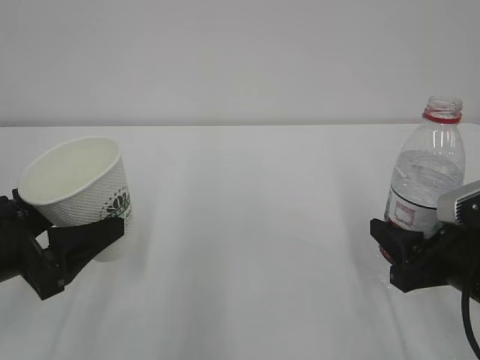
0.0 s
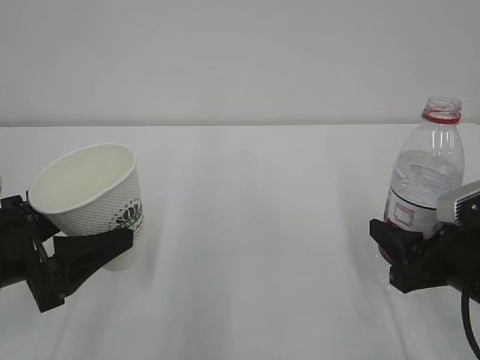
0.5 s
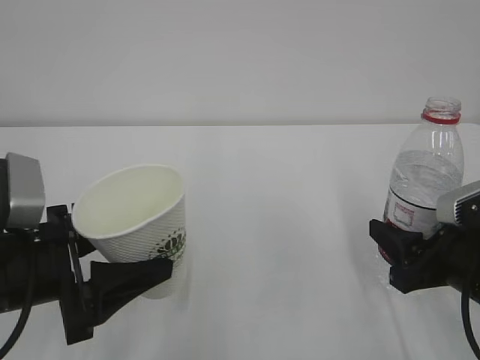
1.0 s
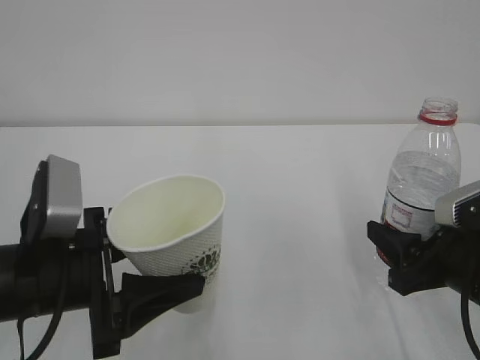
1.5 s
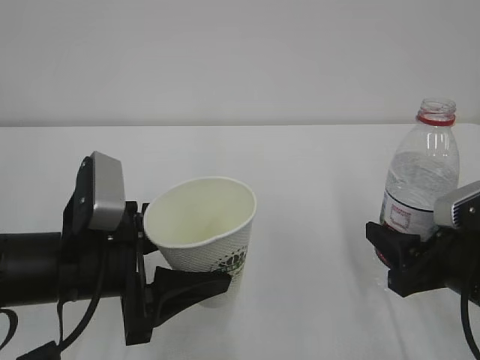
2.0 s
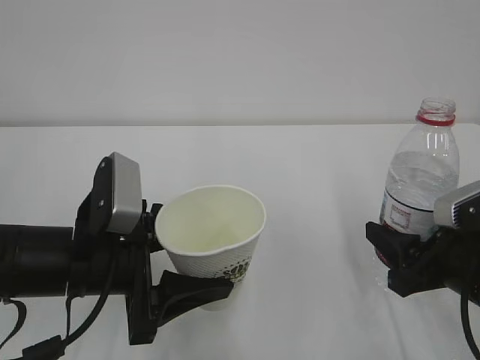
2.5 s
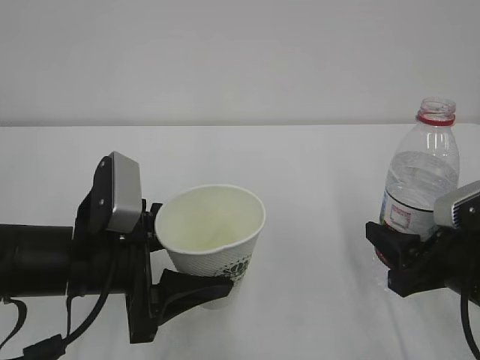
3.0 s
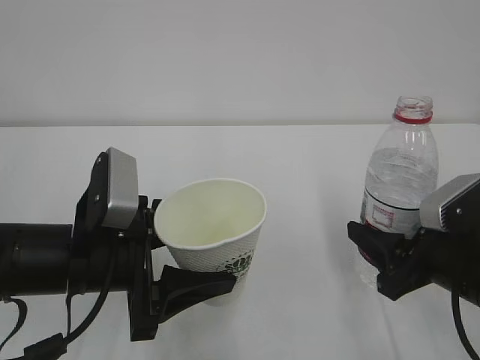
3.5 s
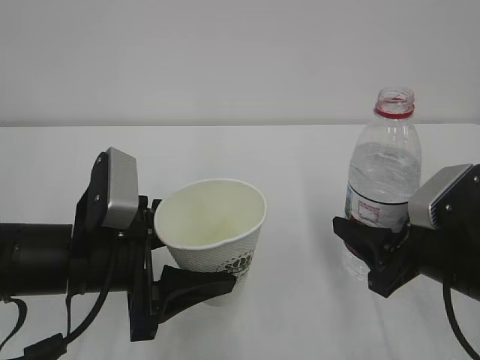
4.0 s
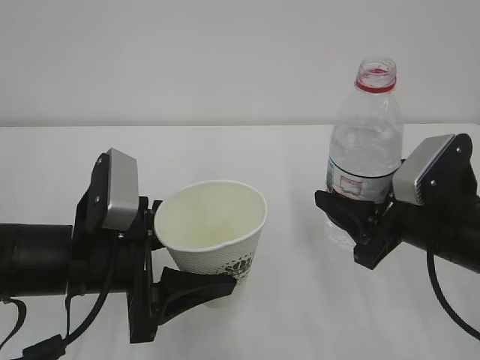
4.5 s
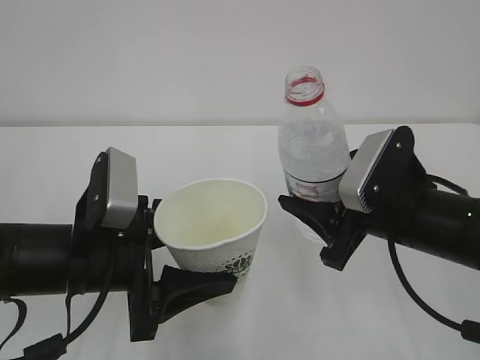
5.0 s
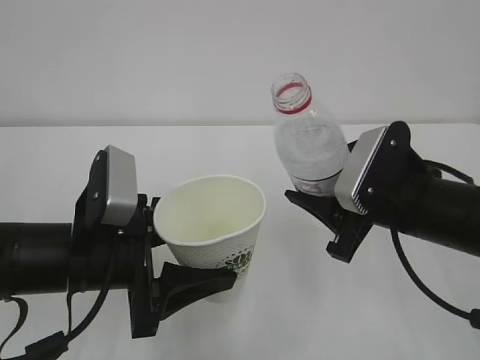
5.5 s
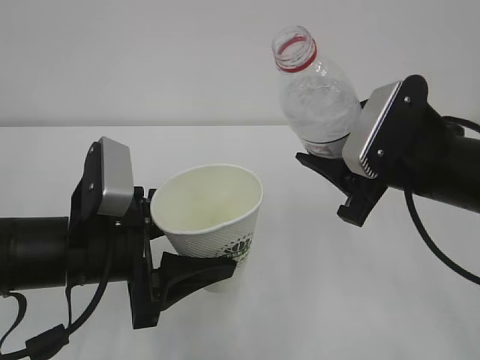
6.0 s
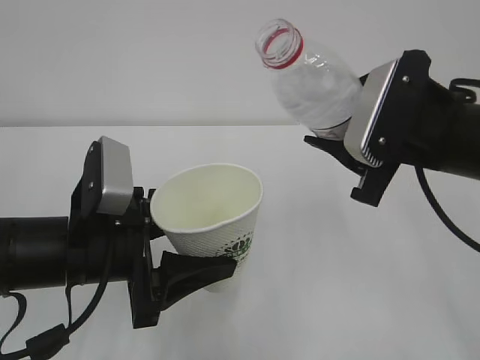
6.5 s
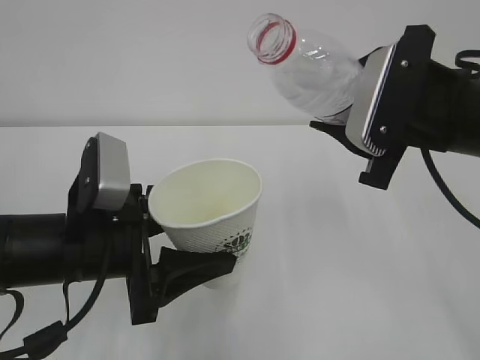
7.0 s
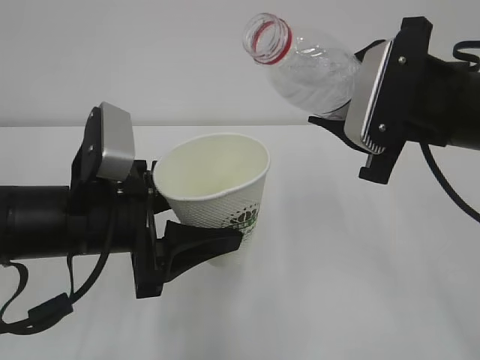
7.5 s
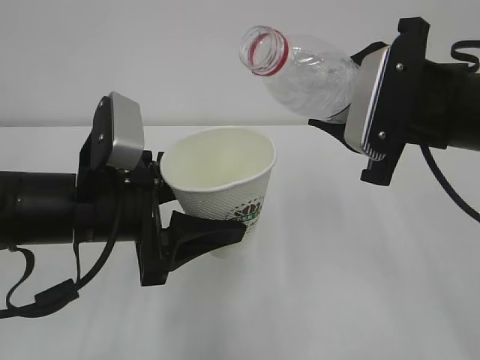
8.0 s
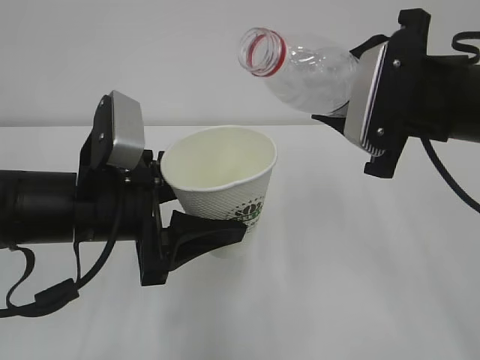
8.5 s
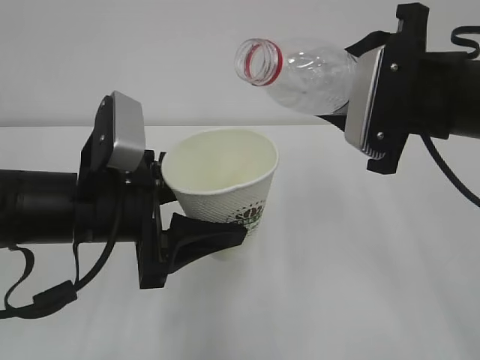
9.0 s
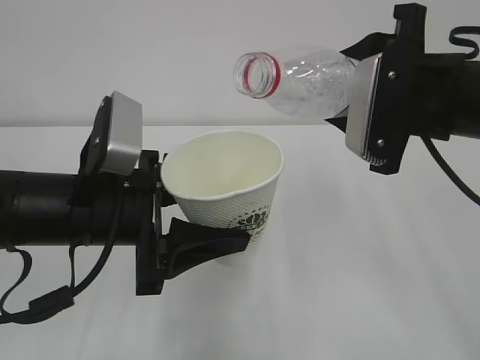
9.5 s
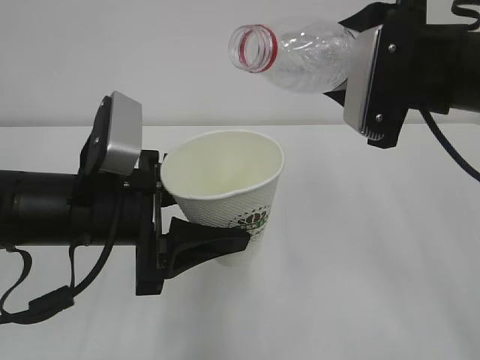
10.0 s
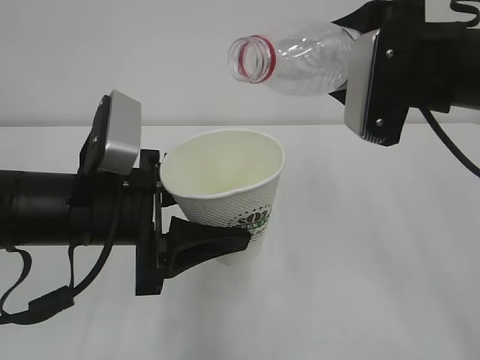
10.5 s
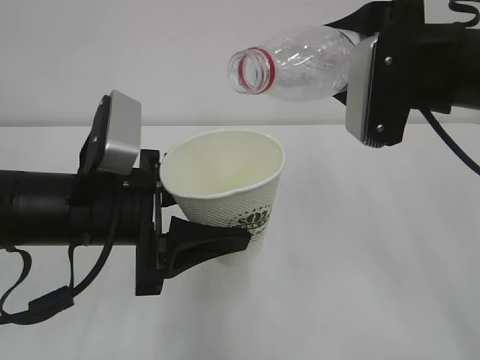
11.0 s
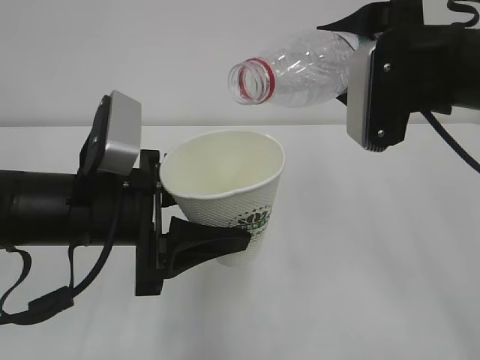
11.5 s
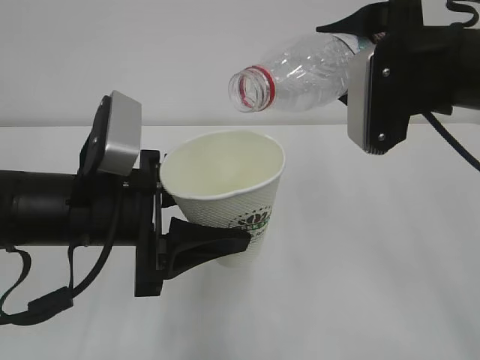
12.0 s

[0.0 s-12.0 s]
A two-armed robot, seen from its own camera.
0.0 to 2.0 s: The left gripper shifts approximately 10 cm to the right.
2.0 to 4.0 s: There are only small adjustments of the grippers.
4.0 to 6.0 s: The right gripper travels upward by about 10 cm.
6.0 to 8.0 s: The right gripper is displaced upward by roughly 5 cm.
8.0 to 10.0 s: The grippers stay close to where they were, moving slightly.
10.0 to 12.0 s: The grippers stay close to where they were, moving slightly.

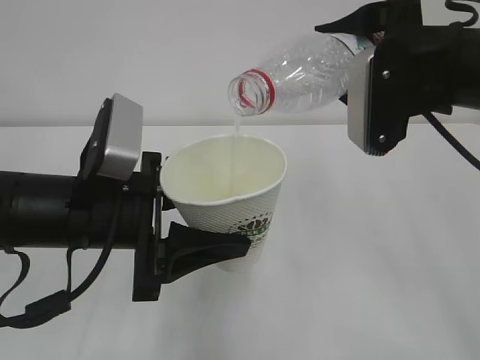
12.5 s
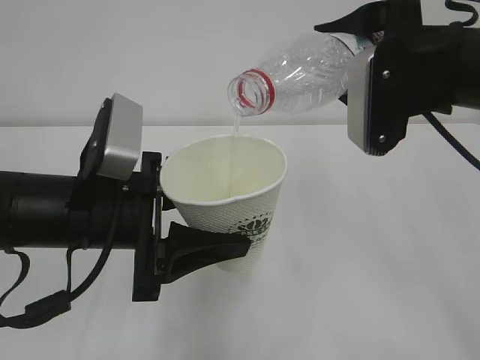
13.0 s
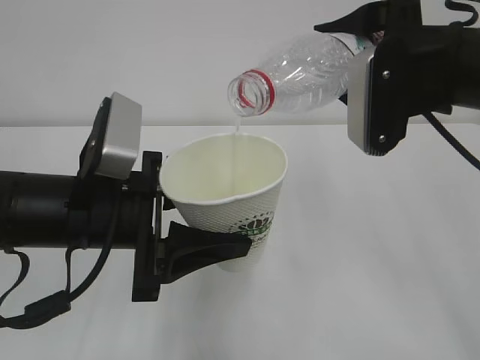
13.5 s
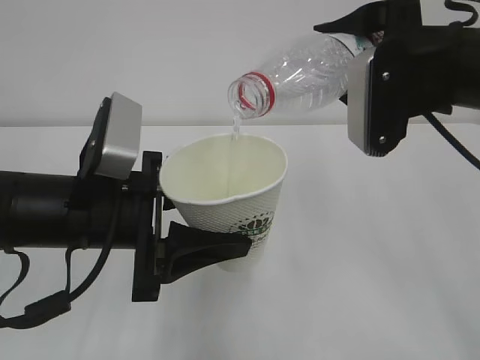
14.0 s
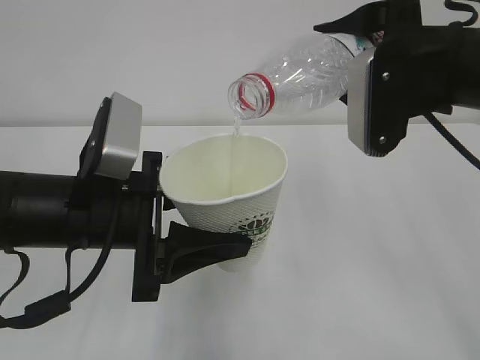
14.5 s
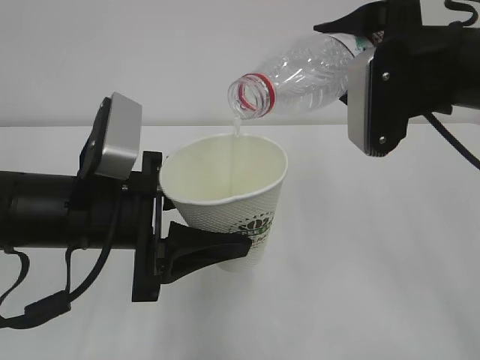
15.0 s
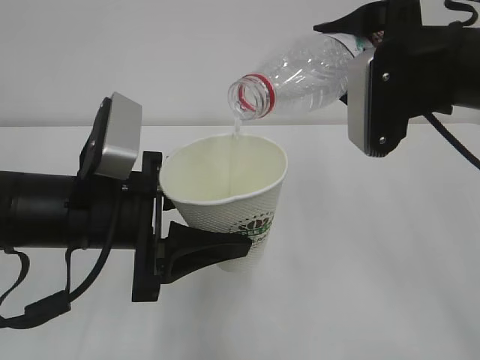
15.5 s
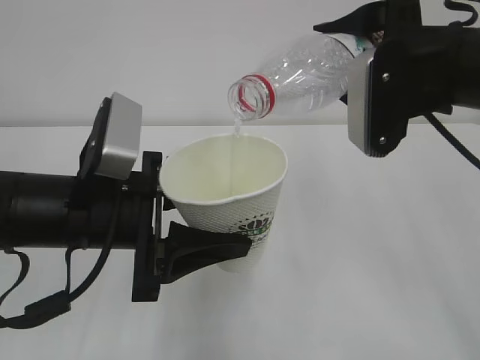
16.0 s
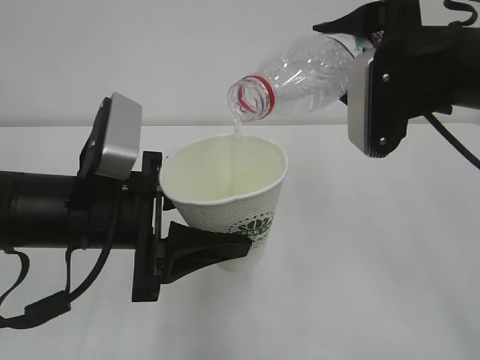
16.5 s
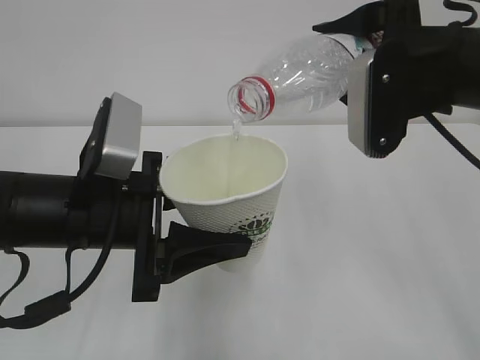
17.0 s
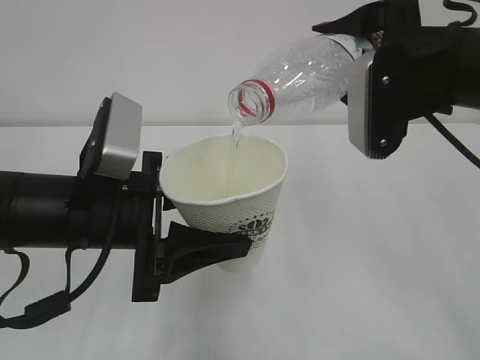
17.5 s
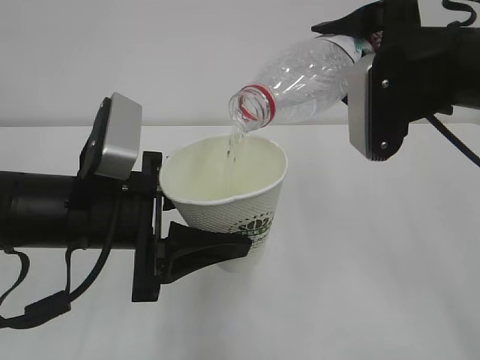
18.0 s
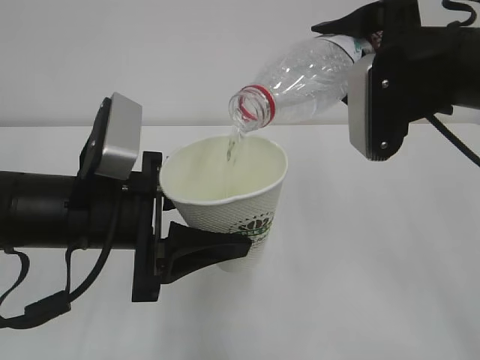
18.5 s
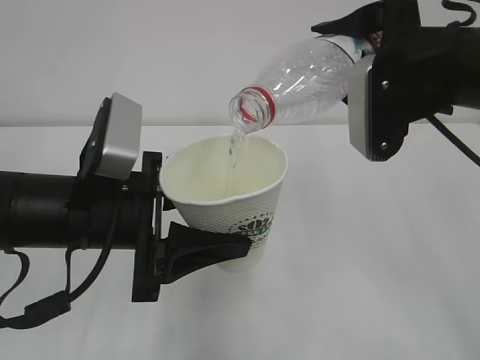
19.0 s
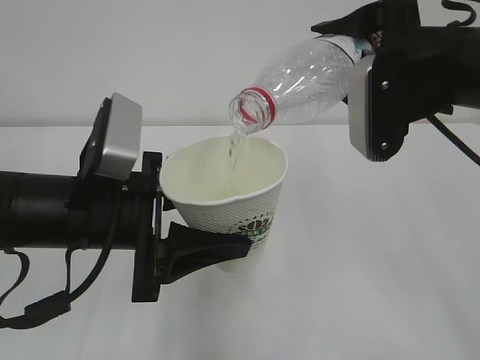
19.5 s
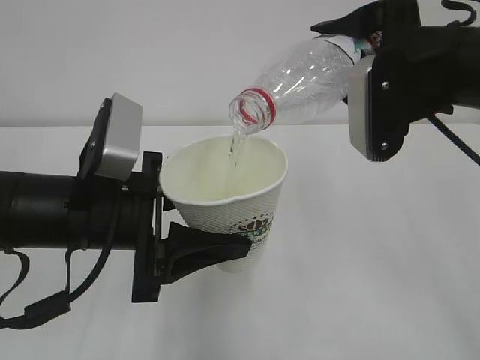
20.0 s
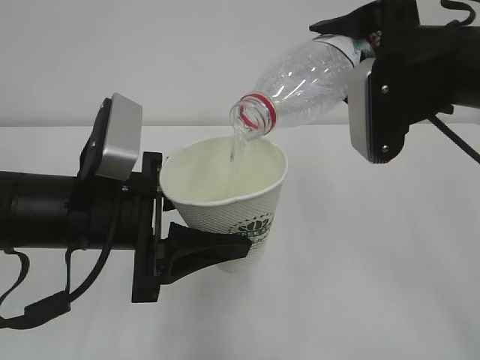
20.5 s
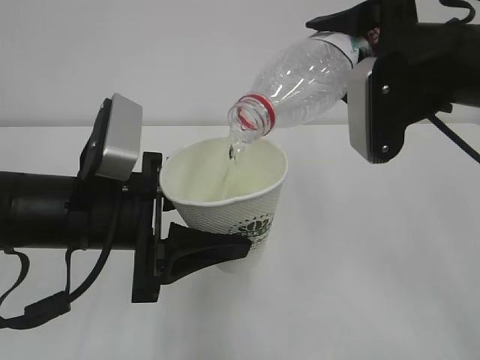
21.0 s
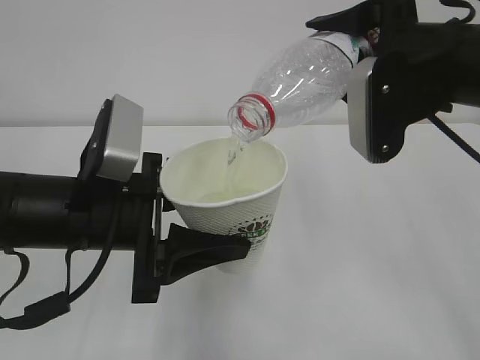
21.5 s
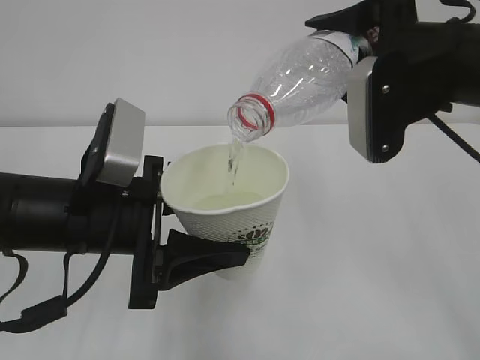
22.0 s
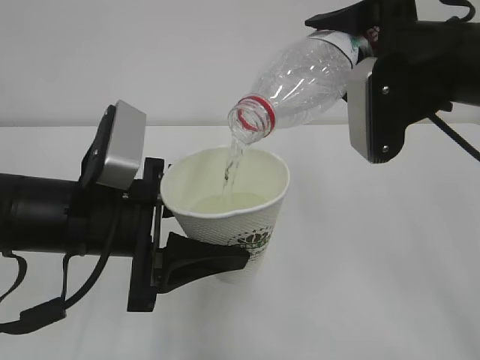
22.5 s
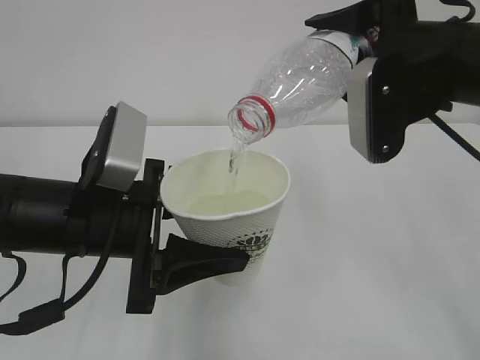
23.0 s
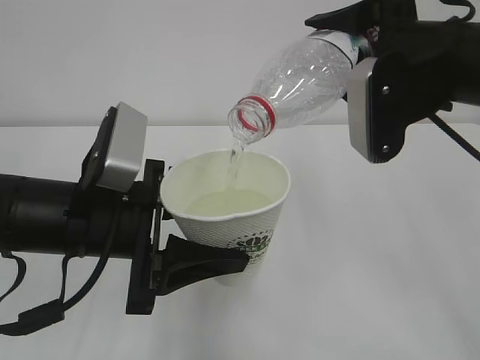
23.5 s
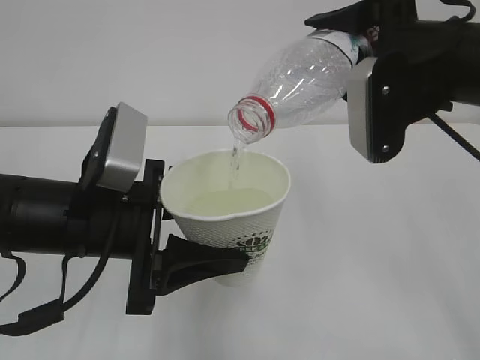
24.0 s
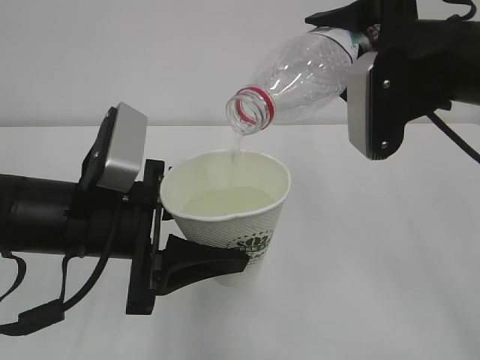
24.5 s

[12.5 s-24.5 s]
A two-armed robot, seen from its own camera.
12.5 to 18.5 s: Both grippers stay about where they are.
18.5 to 20.5 s: The two grippers keep their place.
20.5 to 24.5 s: Neither gripper changes place.

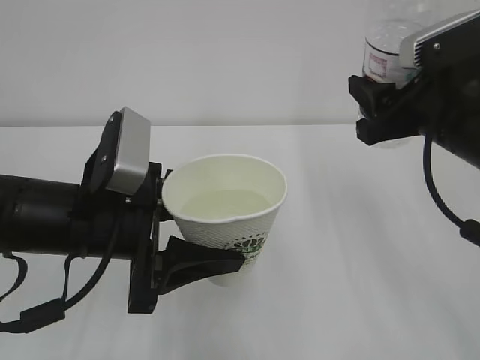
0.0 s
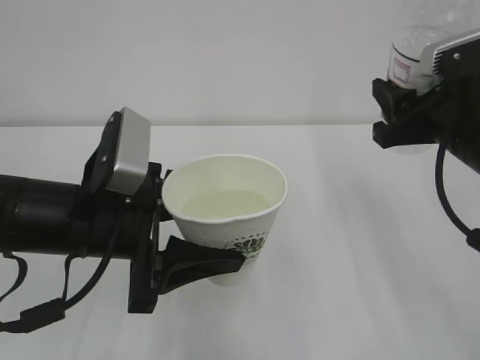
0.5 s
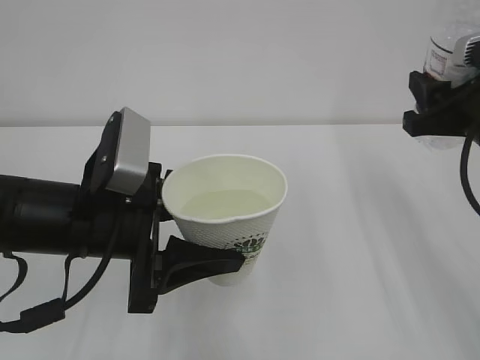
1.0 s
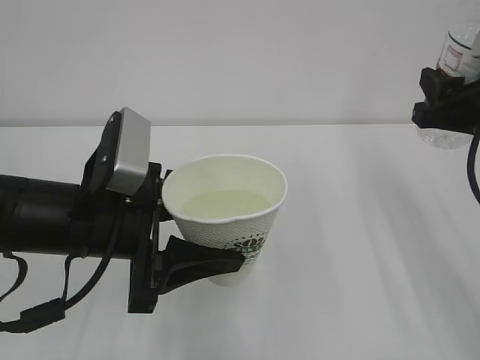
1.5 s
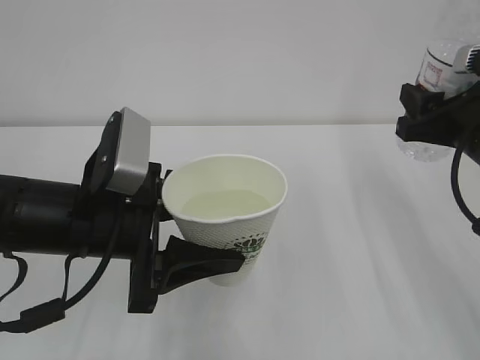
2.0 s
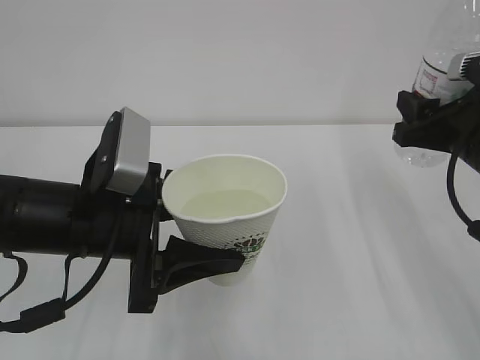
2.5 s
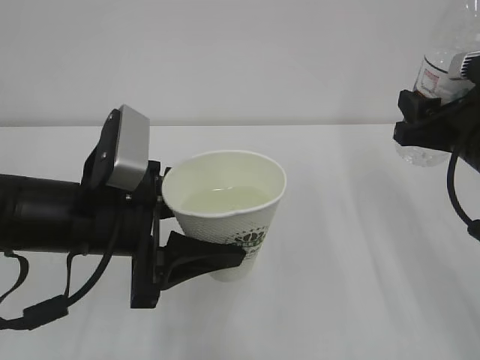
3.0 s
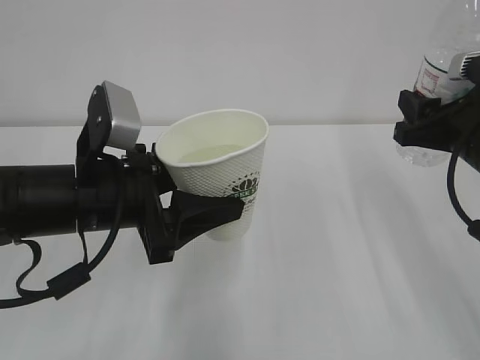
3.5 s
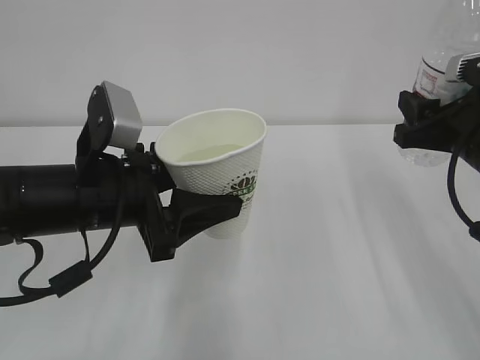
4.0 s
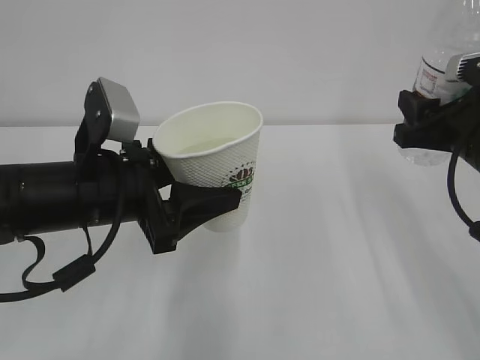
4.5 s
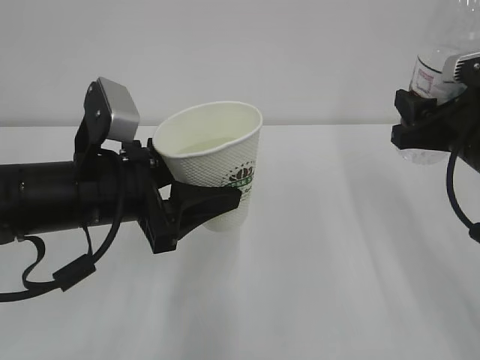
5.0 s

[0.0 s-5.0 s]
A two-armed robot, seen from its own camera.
0.0 to 2.5 s: The right gripper shifts by roughly 5 cm.
2.5 to 5.0 s: There are only small adjustments of the grippers.
